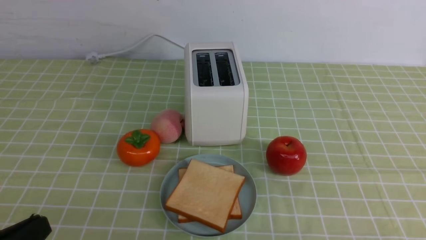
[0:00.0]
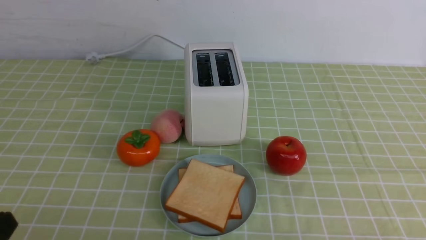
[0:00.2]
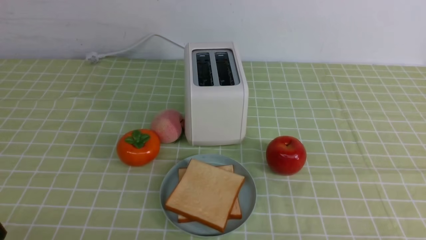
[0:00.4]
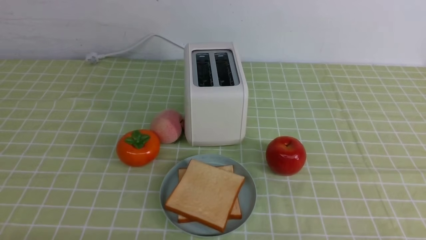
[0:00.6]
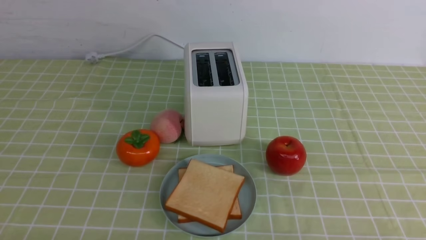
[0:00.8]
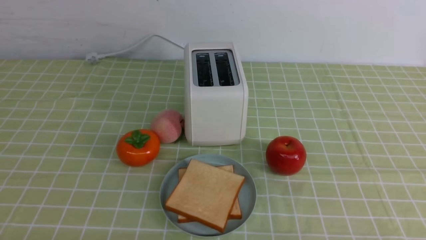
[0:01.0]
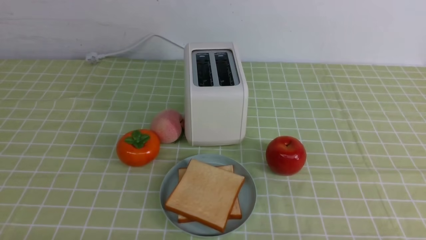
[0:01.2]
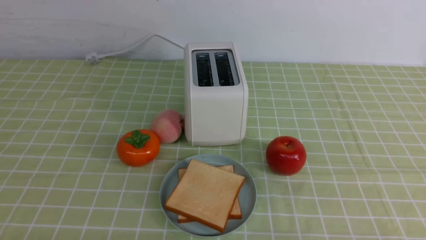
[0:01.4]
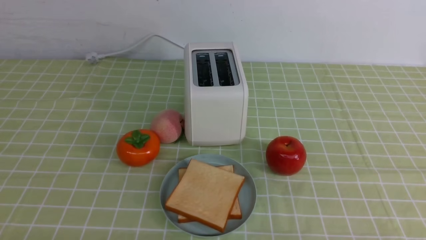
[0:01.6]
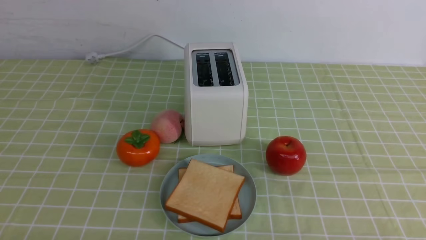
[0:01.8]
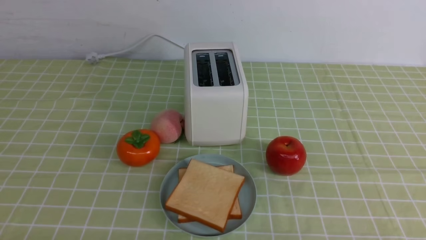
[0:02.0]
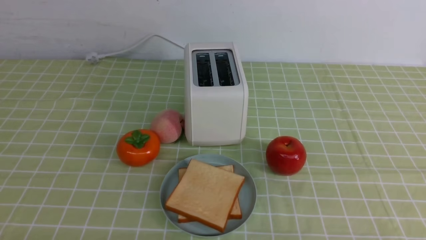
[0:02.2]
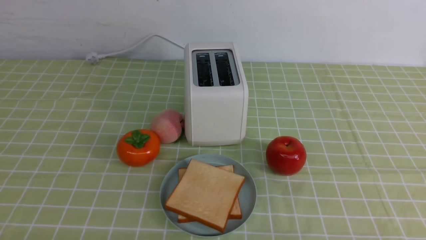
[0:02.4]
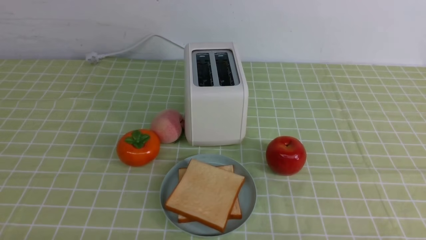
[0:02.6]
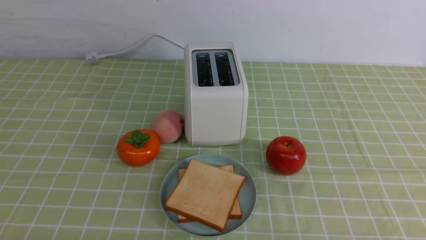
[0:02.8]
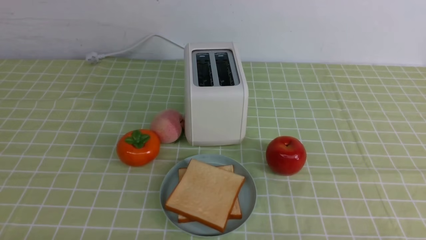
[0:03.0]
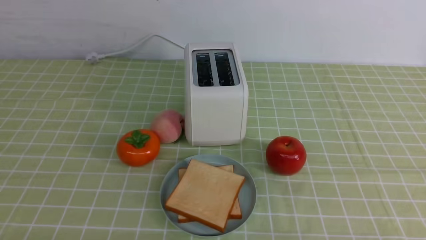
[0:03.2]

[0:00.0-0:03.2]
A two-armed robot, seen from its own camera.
Task of the whole recording: take toasted bread from bread machine on green coffee tablecloth place on plate.
0:00.0 to 0:01.6: The left gripper is displaced downward by some 10 cm.
0:01.6 to 0:03.2: Both grippers stay put.

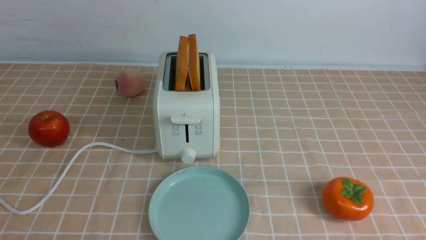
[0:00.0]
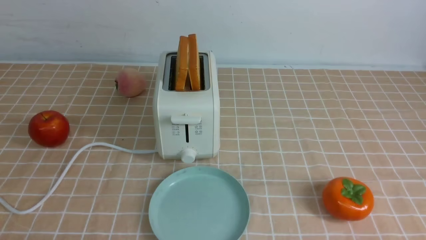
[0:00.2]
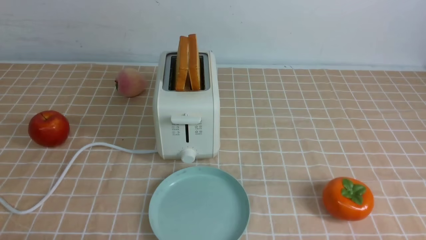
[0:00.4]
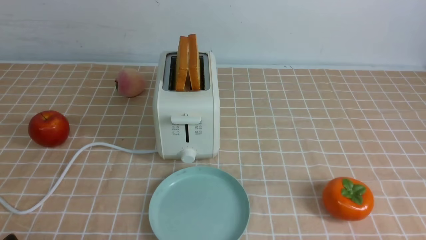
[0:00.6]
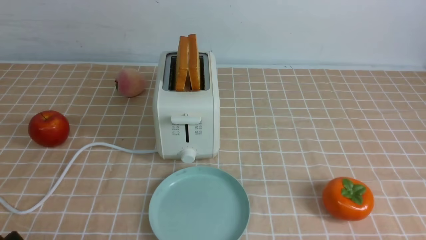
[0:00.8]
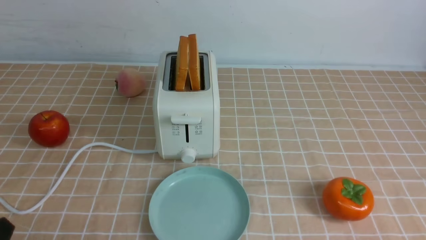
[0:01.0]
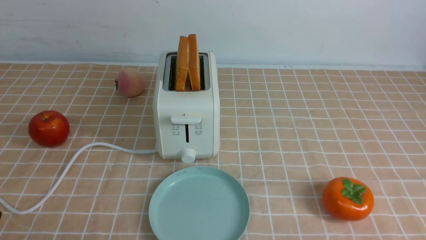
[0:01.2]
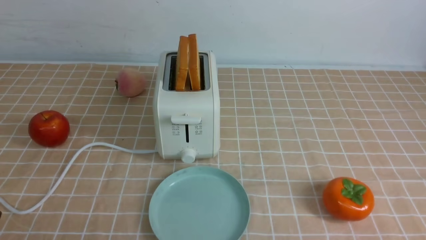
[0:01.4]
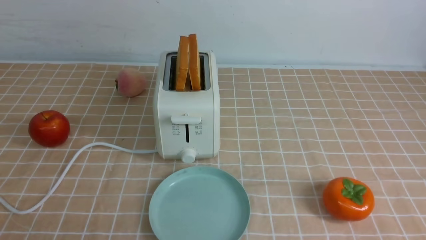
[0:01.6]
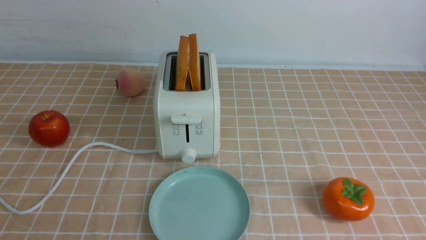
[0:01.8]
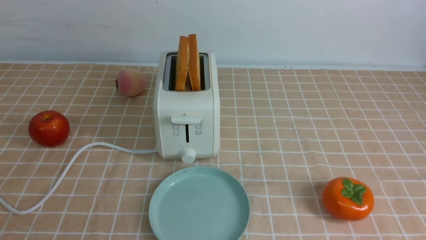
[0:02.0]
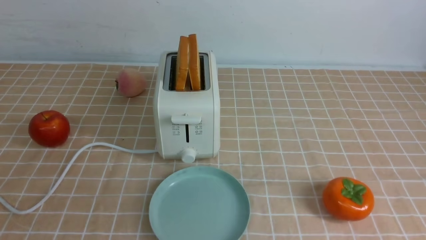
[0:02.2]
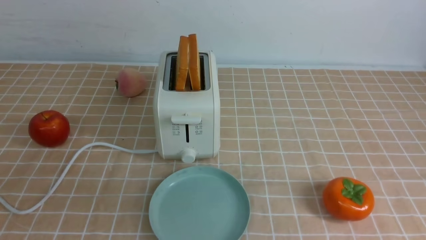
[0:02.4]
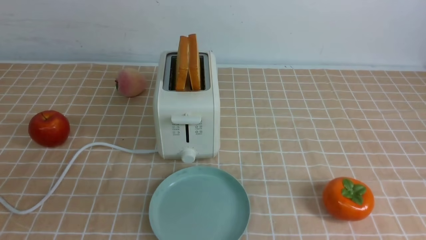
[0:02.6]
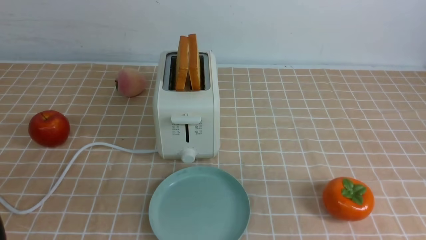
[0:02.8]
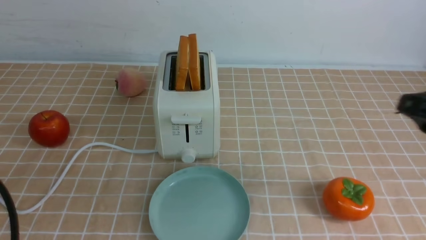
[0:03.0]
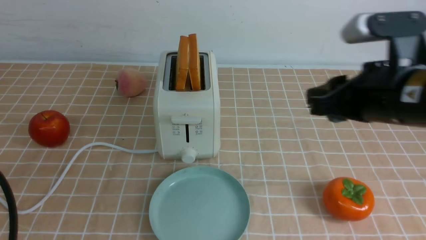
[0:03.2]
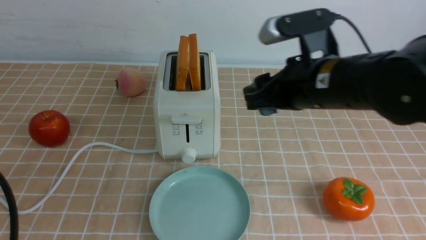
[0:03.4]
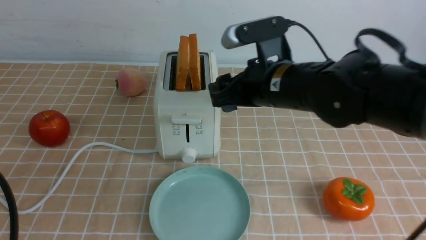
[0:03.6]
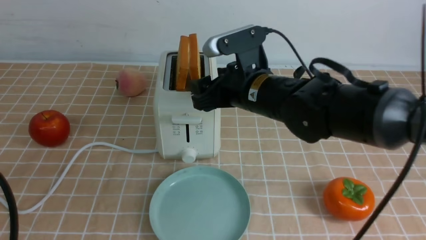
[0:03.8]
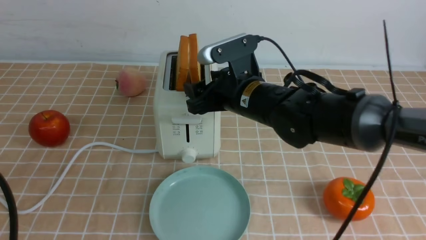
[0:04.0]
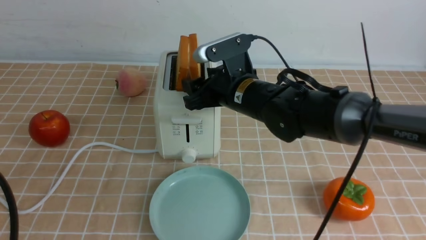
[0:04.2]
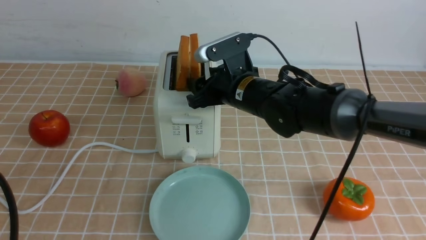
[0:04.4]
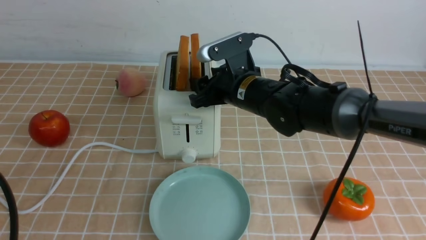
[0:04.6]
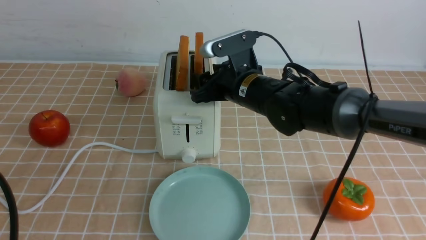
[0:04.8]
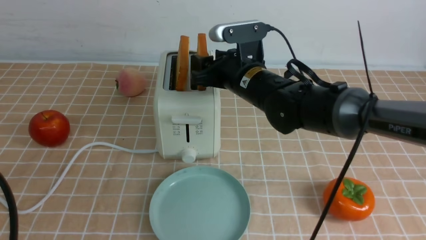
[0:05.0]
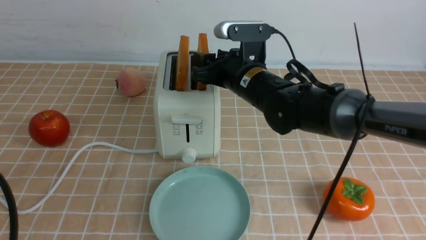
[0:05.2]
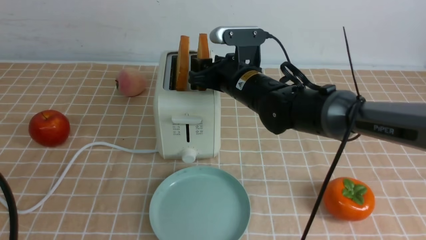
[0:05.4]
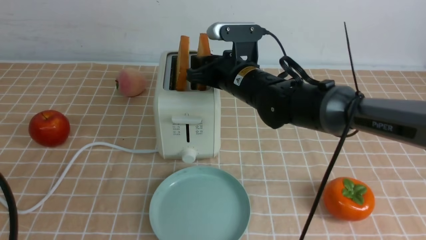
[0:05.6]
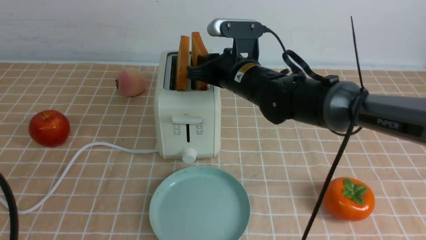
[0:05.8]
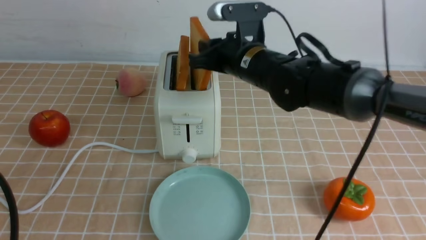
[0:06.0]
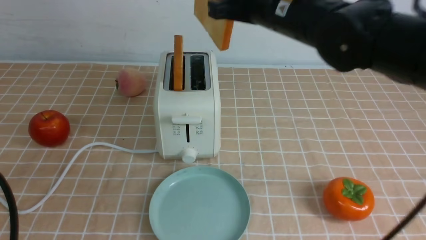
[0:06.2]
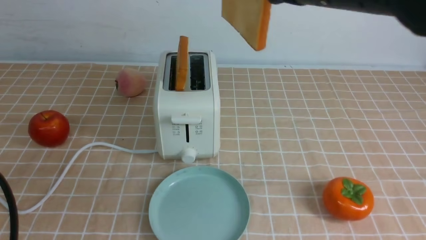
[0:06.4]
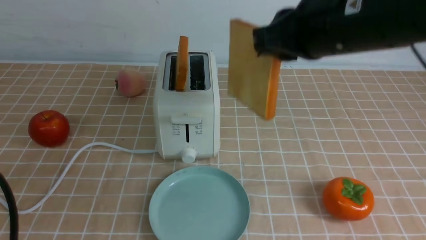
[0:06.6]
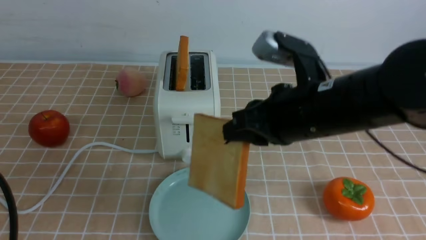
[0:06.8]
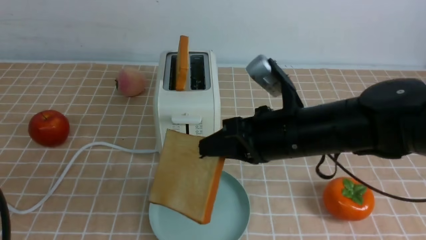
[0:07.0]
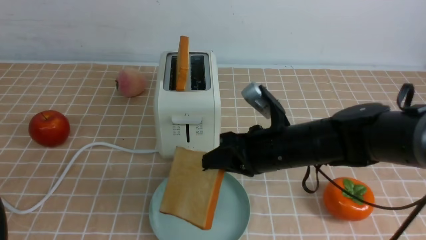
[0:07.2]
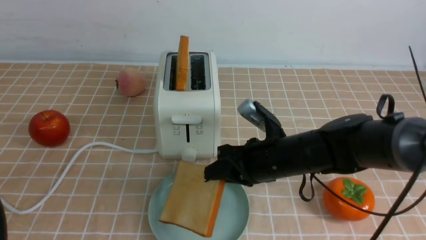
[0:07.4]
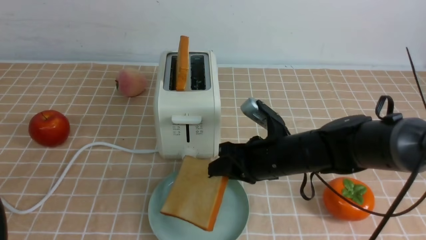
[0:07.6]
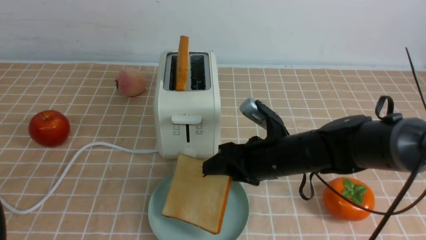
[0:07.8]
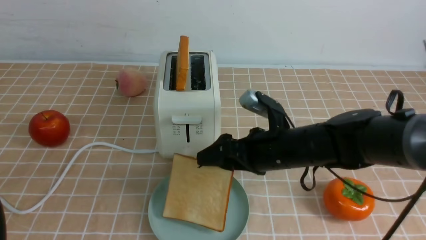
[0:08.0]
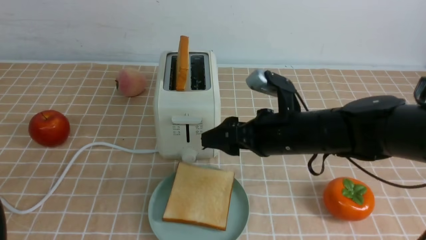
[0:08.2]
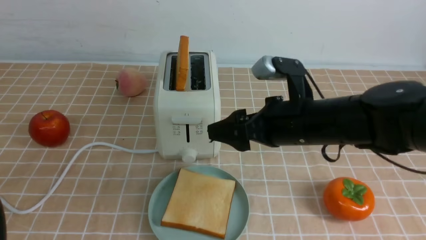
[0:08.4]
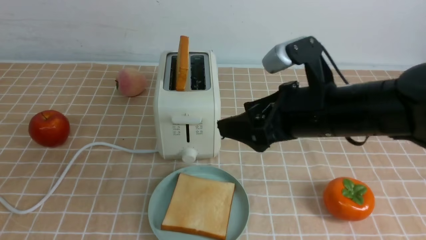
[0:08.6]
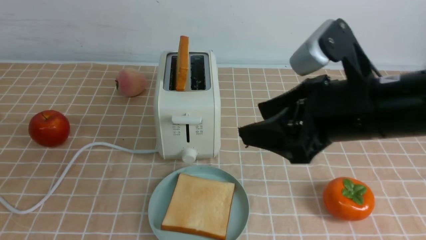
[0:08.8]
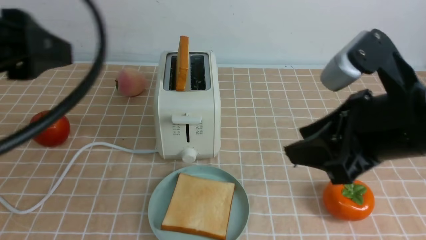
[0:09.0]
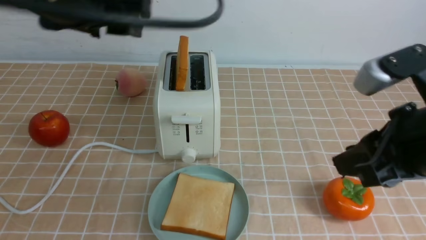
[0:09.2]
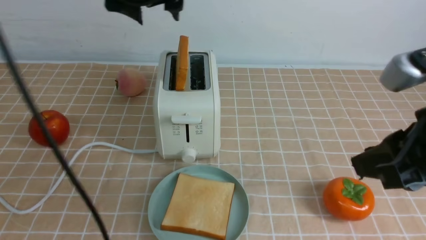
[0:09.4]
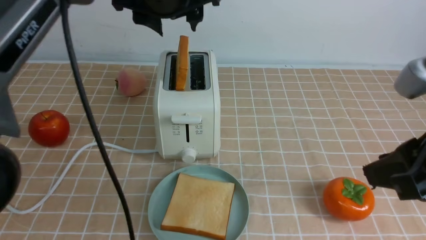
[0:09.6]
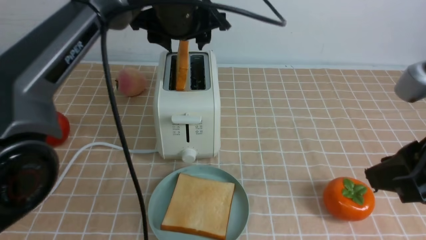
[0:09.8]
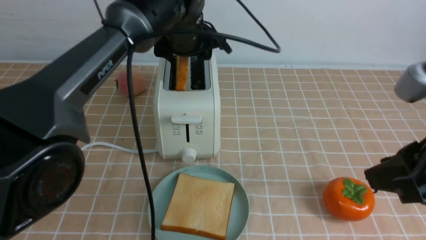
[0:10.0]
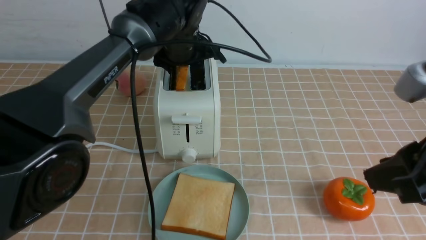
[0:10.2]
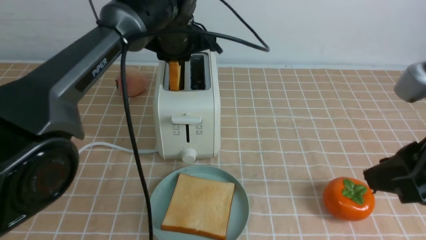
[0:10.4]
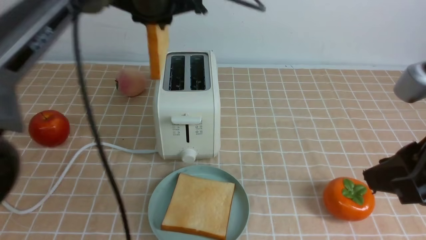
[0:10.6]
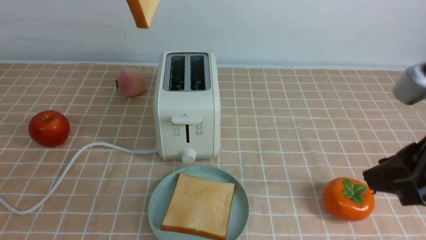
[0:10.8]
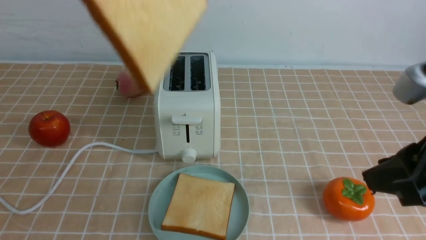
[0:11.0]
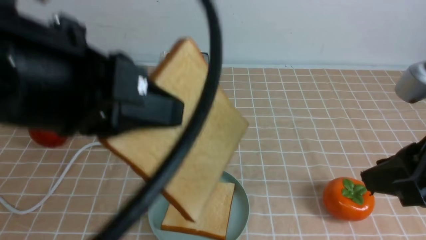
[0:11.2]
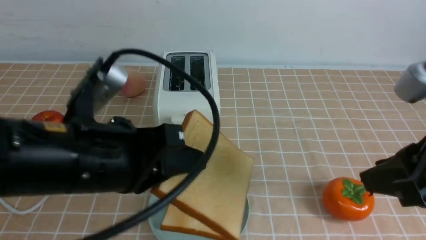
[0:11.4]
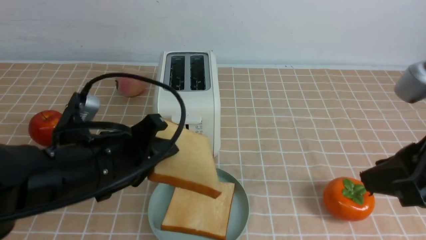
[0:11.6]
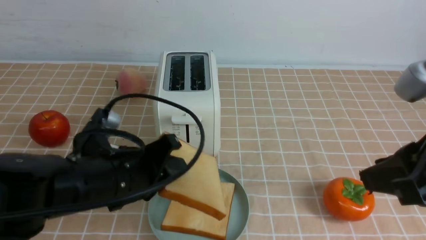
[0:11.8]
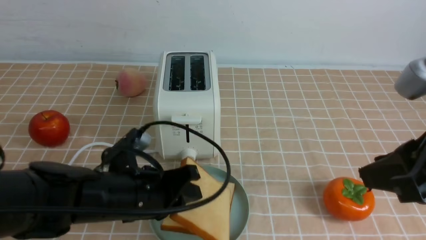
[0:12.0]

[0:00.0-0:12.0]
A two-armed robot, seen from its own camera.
Task of the whole recording: take toasted bread from bread machine on light coffee tablecloth place on plate.
Step, 0:00.0 to 0:06.0: use the right arm to take out a slice of bread.
Step, 0:06.2 to 0:08.2: use the right arm to put a slice of bread into the plate.
Step, 0:08.4 to 0:10.4: use the left arm to take out a slice of bread.
0:01.6 to 0:03.0: The left gripper is displaced upward by approximately 10 cm, while the right gripper shifts roughly 20 cm forward and upward.
0:03.0 to 0:04.4: The right gripper goes approximately 30 cm to the left, forward and downward.
0:04.4 to 0:06.0: The right gripper is displaced upward by some 10 cm, and closes up.
0:06.0 to 0:07.6: The right gripper heads downward and backward, covering about 15 cm.
0:07.6 to 0:09.0: The right gripper is displaced upward, backward and to the right by about 20 cm, and opens, then closes once more; the left gripper travels upward, forward and to the right by approximately 20 cm, and opens its fingers.
0:09.0 to 0:10.4: The right gripper changes place by roughly 5 cm, while the left gripper heads forward and to the right, covering some 25 cm, and closes its fingers.
0:10.4 to 0:12.0: The left gripper moves backward and downward, roughly 25 cm.

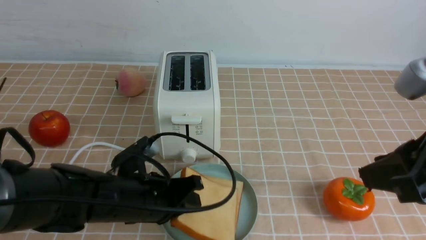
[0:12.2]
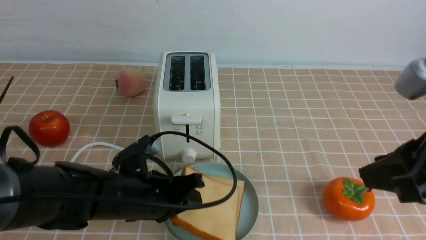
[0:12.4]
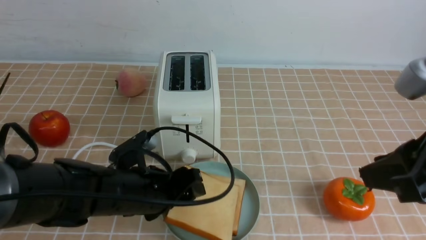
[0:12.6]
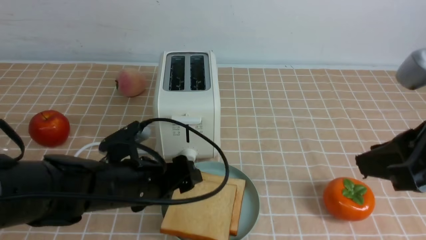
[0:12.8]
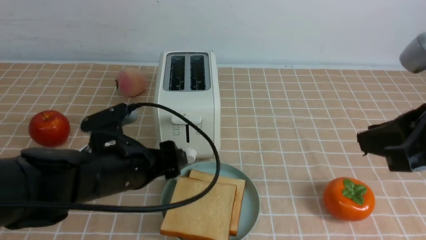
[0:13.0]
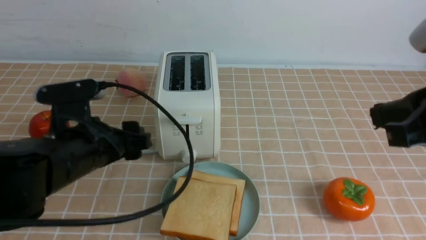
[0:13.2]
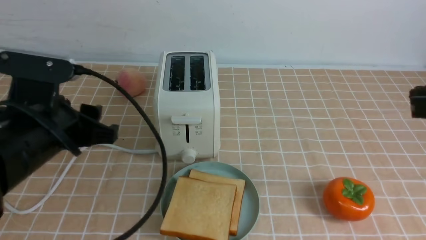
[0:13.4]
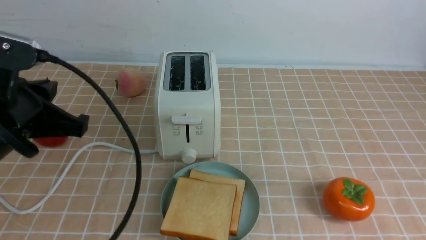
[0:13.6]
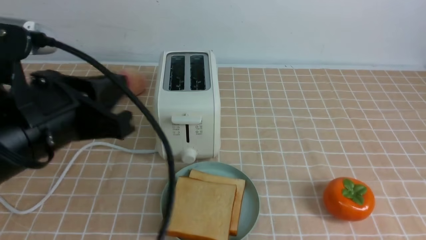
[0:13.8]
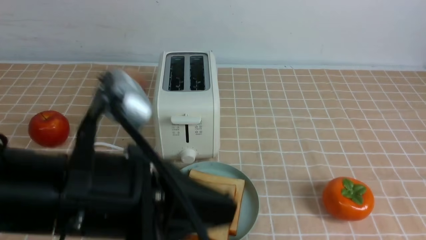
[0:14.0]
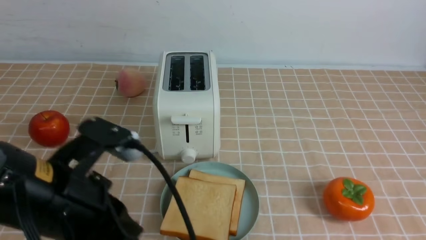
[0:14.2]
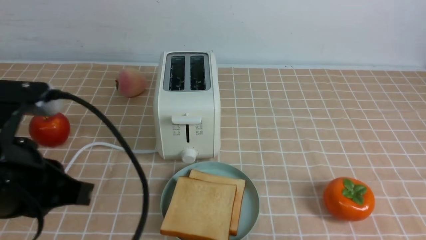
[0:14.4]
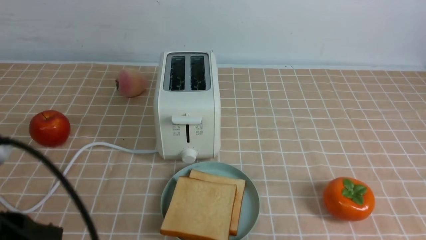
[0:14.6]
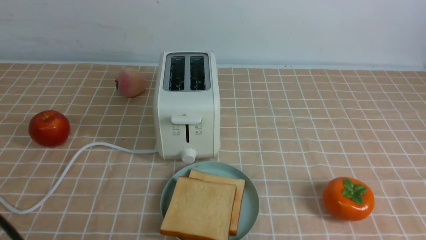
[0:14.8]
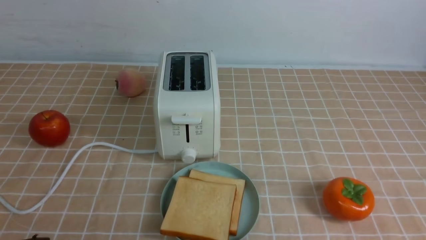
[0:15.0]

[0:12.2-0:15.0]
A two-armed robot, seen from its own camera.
Task of the whole recording: take toasted bread from bread machine on light coffee tablecloth place on plate.
0:12.2 to 0:13.6: The right gripper heads to the right, covering some 5 cm, and closes up. Meanwhile the left gripper is displaced upward and to the left by roughly 15 cm, and opens and closes again.
0:13.6 to 0:15.0: The left gripper is displaced backward by approximately 15 cm.
